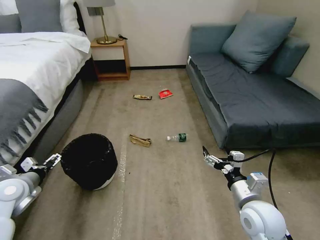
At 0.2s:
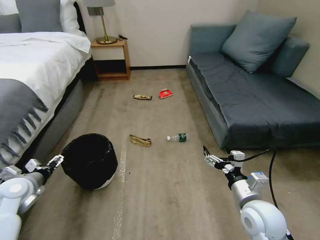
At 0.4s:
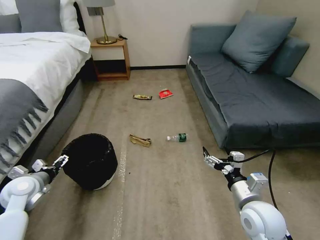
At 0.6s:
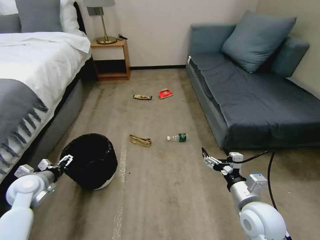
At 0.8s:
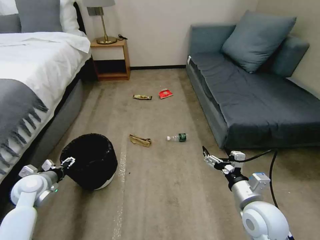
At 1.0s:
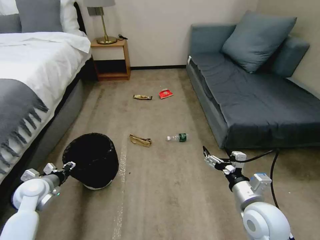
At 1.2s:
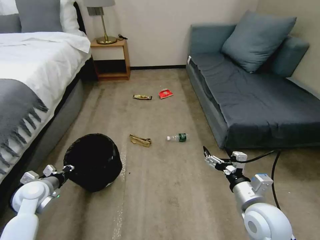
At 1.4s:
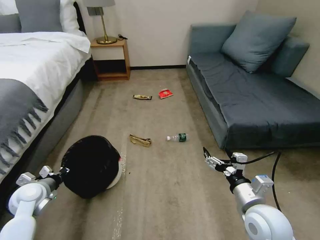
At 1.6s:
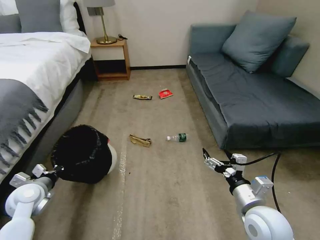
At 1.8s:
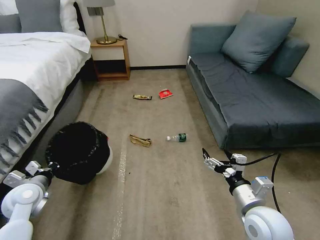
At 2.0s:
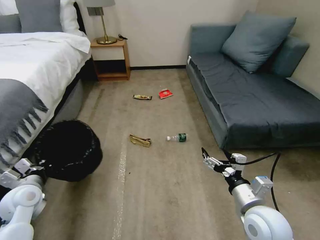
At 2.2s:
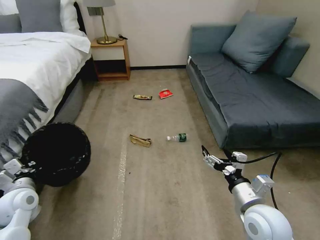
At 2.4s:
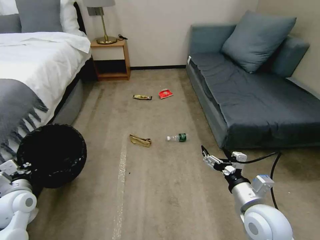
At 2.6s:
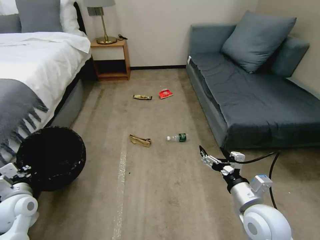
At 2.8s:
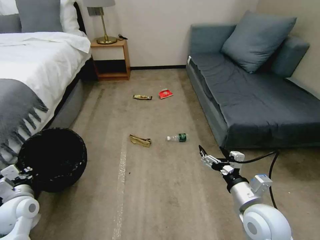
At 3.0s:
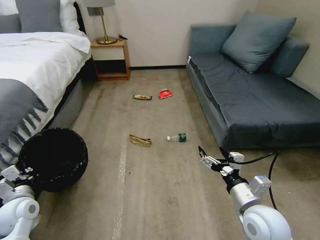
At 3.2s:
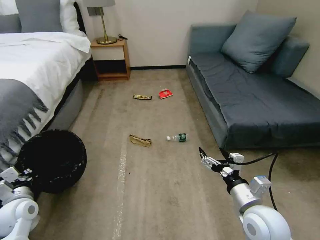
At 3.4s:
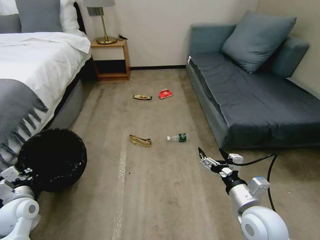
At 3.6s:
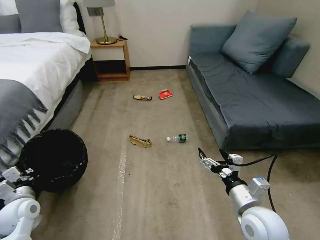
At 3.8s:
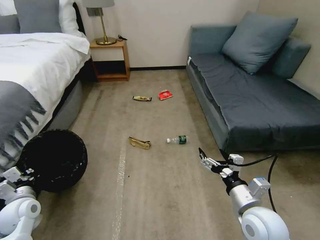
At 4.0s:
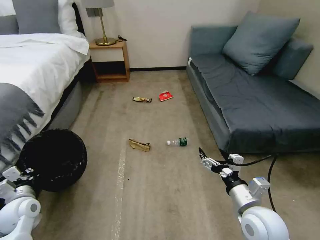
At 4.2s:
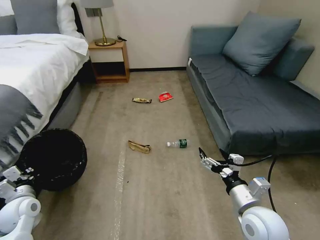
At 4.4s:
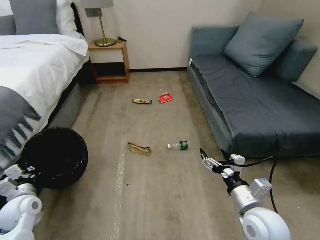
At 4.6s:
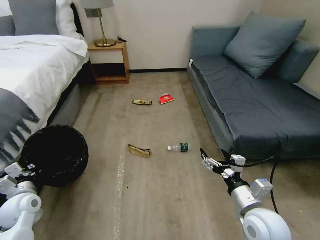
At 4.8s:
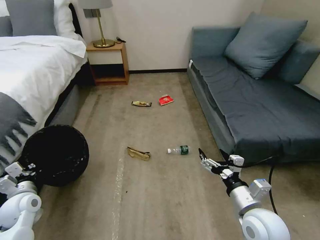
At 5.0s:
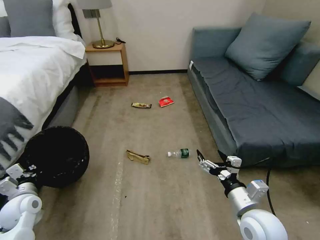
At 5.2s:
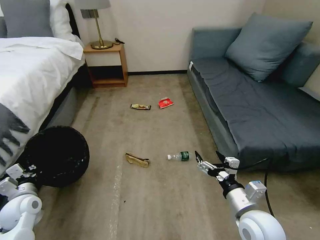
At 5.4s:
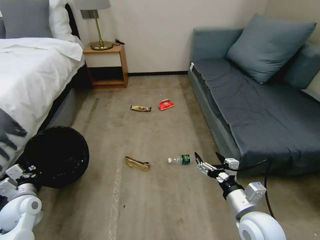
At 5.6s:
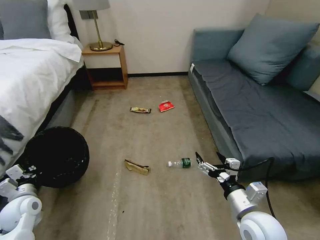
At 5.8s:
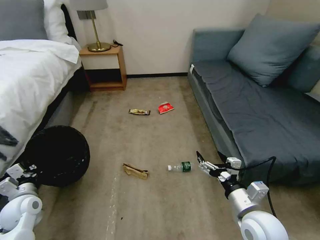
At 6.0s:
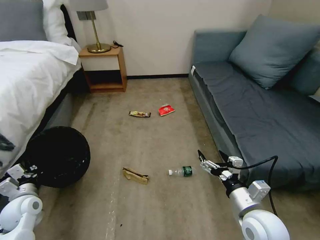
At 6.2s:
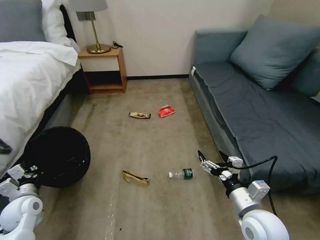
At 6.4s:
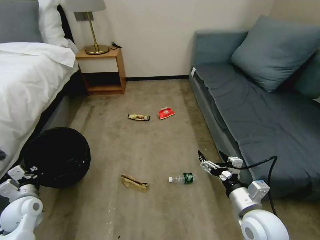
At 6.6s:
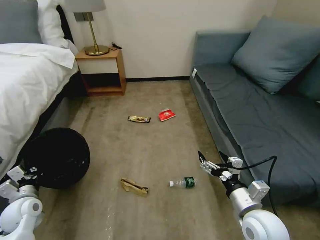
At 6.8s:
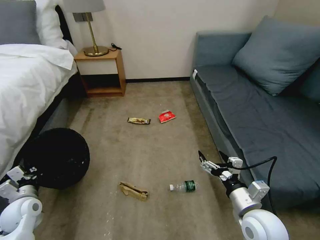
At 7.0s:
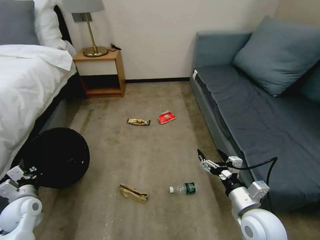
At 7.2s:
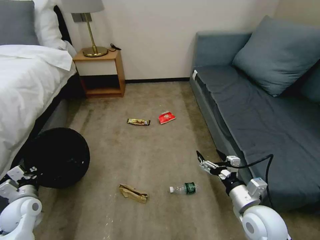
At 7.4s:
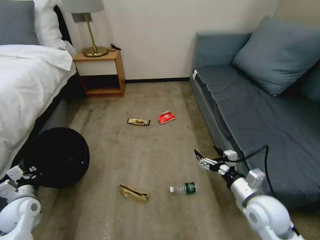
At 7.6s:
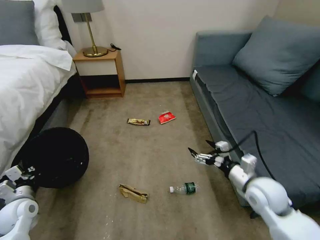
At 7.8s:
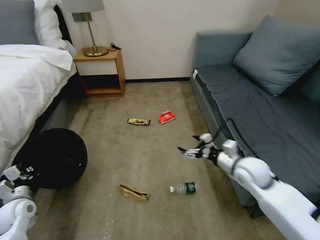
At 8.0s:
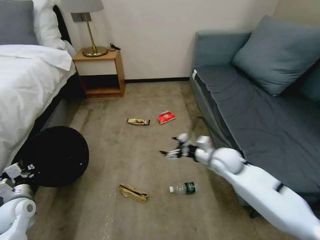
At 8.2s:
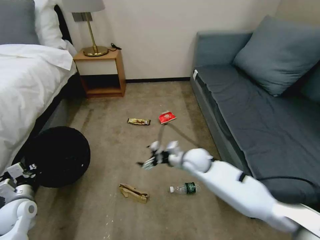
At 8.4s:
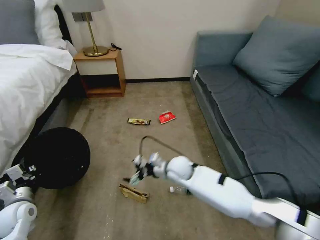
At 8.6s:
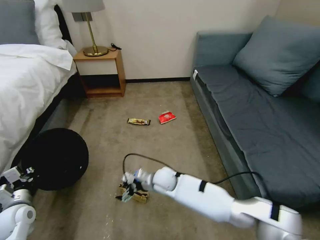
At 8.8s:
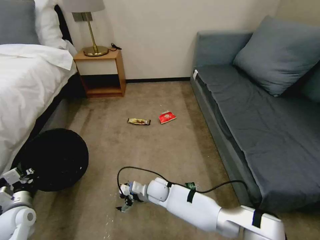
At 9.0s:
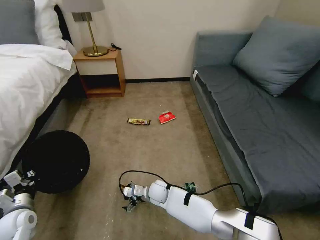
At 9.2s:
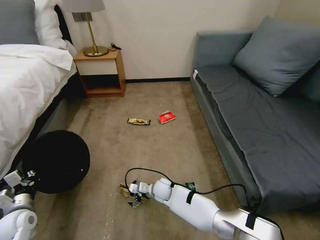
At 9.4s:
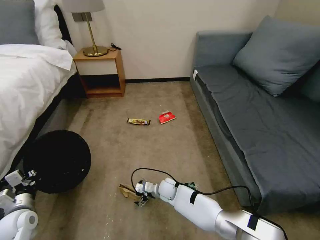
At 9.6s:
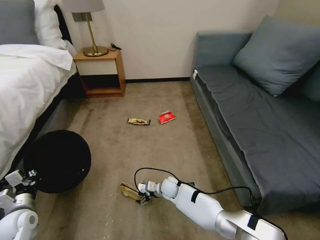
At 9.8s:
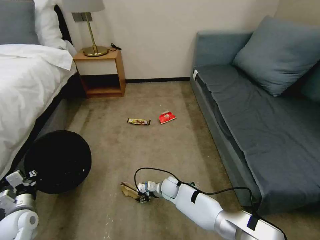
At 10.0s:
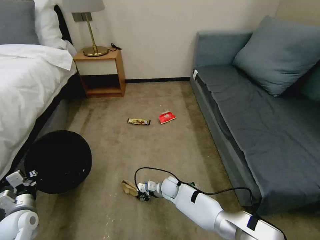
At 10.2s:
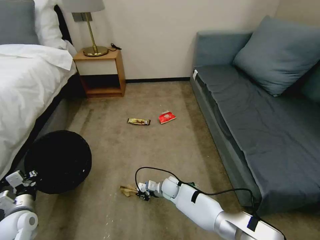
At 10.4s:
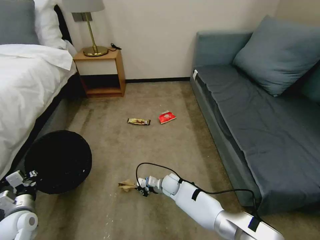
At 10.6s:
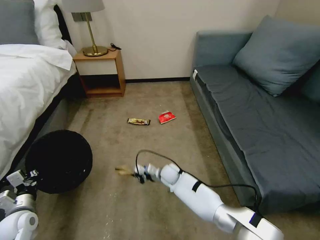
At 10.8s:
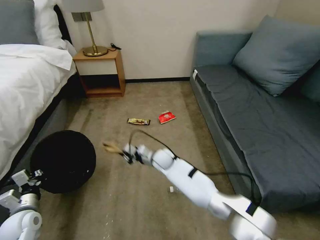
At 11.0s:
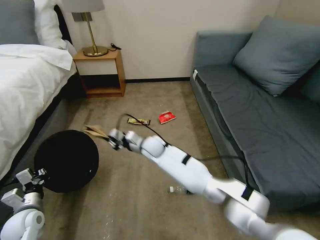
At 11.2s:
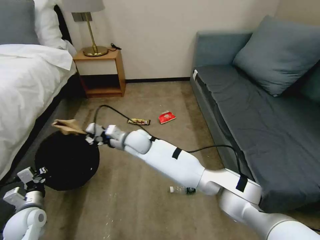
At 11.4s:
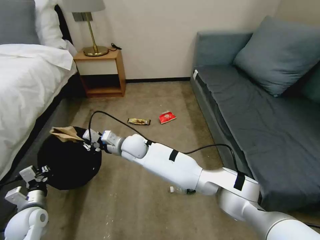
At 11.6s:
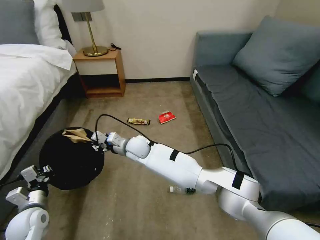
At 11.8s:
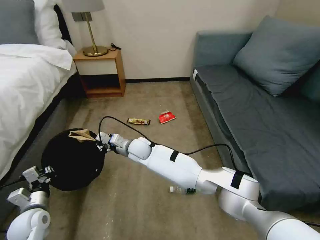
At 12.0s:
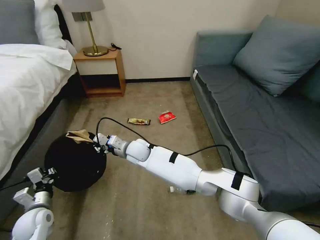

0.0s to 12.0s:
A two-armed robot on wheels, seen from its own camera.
Task of the whole recording: Pick up the trash bin, then pick up the garbage on the floor and place it into the trash bin.
0.0s to 1.6s: The left gripper moves downward, roughly 5 cm, and closes up.
3.0s to 4.4s: There are only small adjustments of the grippers.
6.0s to 7.6s: The right gripper shifts approximately 10 cm forward.
7.6s to 9.0s: The right gripper moves to the left and downward, about 40 cm.
9.0s to 10.4s: The right gripper is displaced to the right by approximately 5 cm, and closes its fingers.
10.4s to 12.0s: The right gripper goes roughly 25 cm upward and to the left.

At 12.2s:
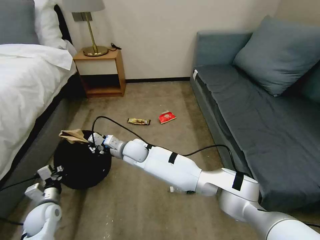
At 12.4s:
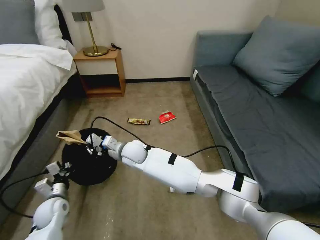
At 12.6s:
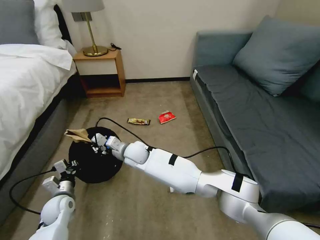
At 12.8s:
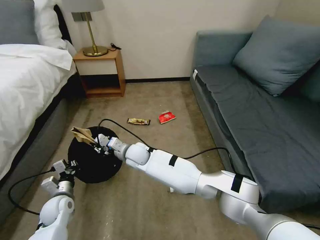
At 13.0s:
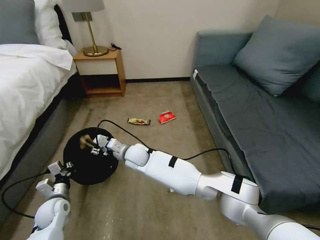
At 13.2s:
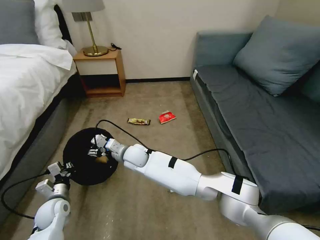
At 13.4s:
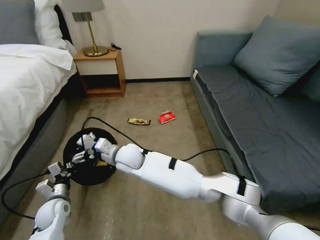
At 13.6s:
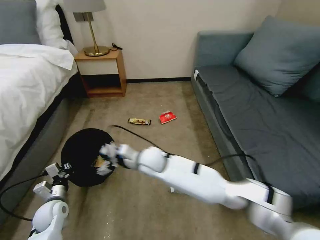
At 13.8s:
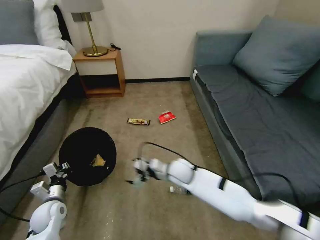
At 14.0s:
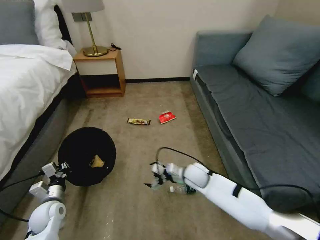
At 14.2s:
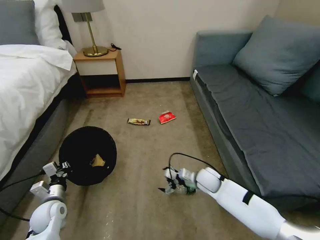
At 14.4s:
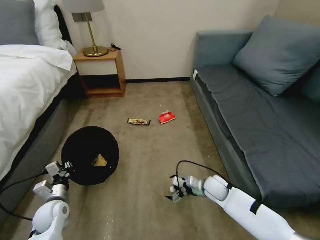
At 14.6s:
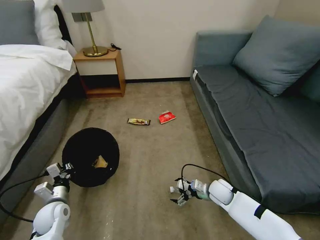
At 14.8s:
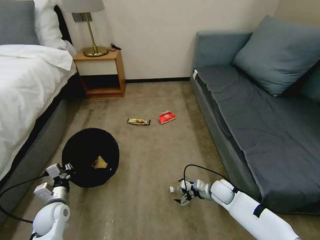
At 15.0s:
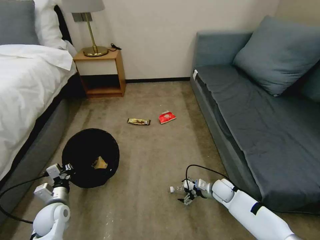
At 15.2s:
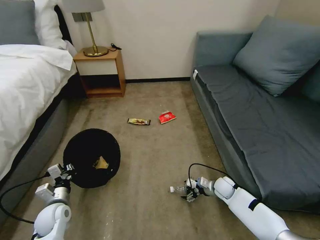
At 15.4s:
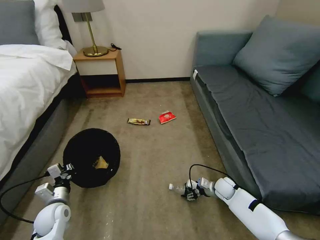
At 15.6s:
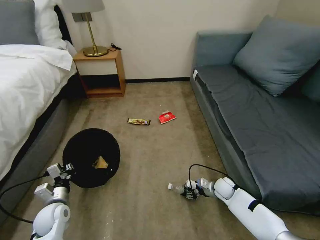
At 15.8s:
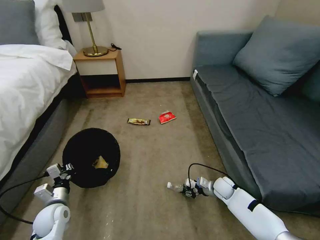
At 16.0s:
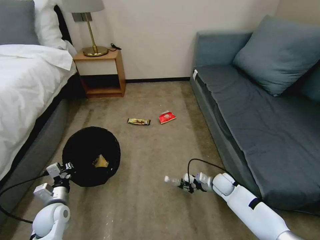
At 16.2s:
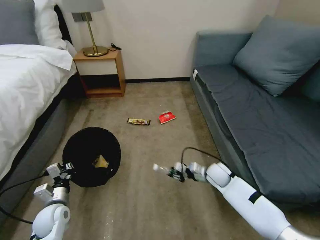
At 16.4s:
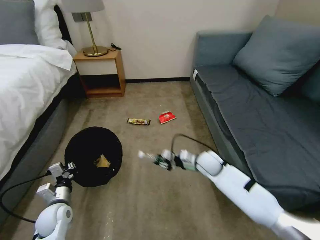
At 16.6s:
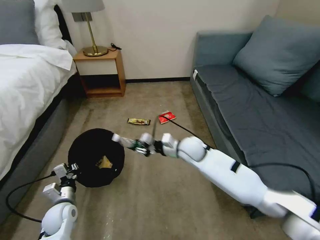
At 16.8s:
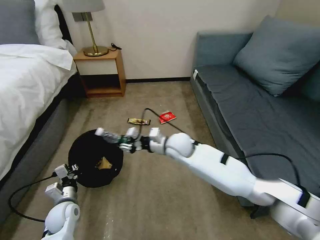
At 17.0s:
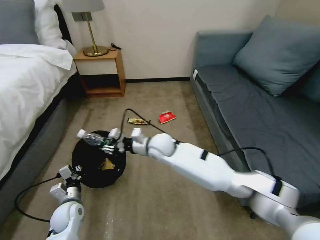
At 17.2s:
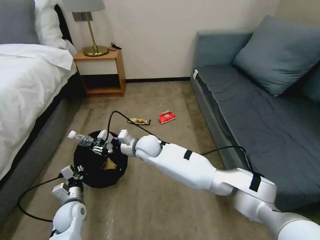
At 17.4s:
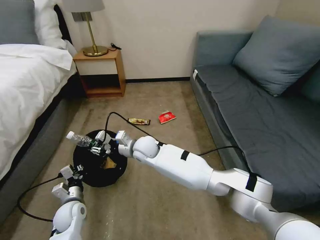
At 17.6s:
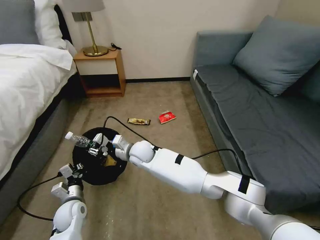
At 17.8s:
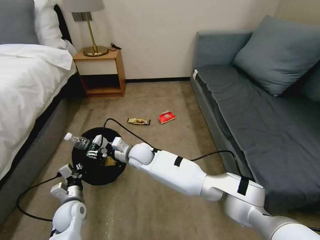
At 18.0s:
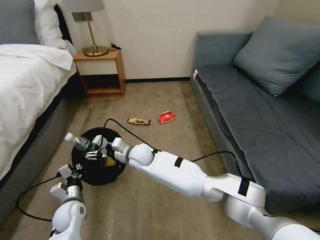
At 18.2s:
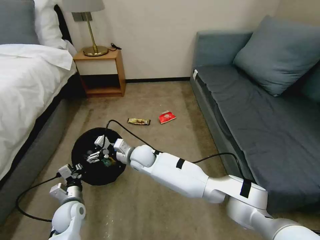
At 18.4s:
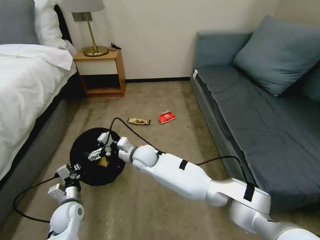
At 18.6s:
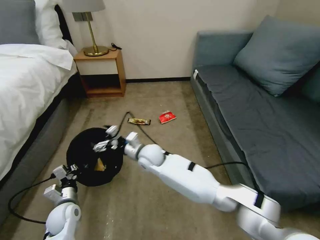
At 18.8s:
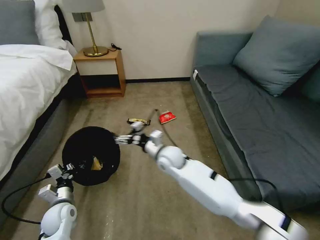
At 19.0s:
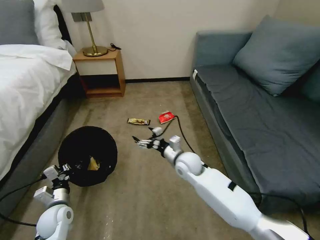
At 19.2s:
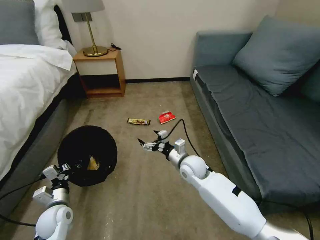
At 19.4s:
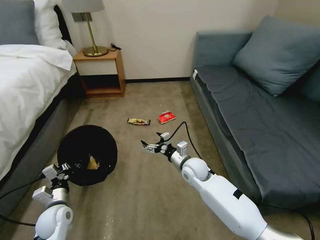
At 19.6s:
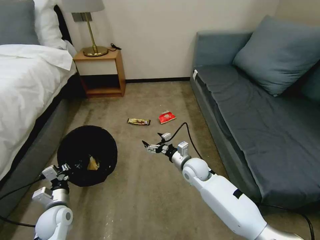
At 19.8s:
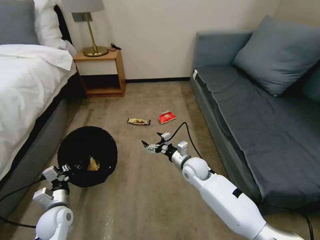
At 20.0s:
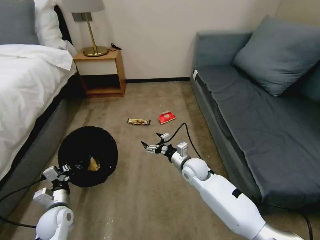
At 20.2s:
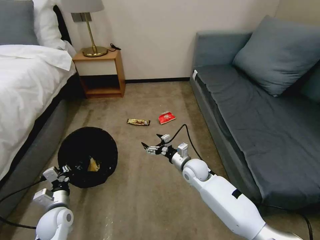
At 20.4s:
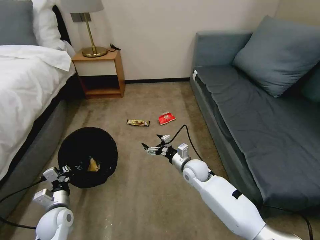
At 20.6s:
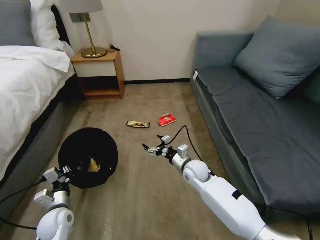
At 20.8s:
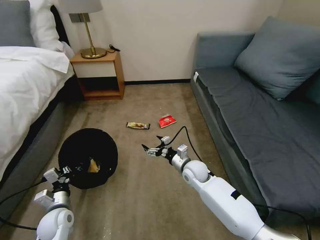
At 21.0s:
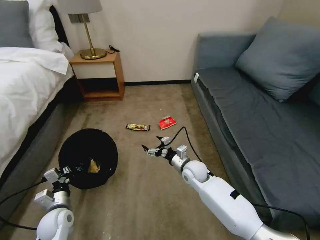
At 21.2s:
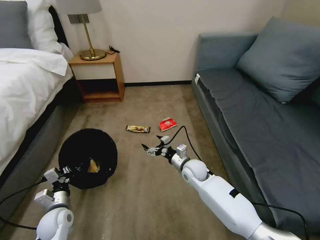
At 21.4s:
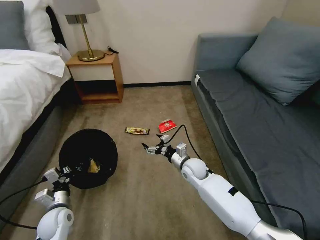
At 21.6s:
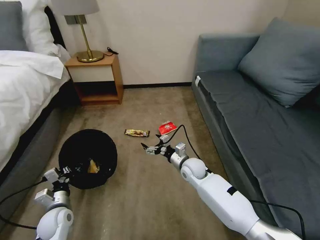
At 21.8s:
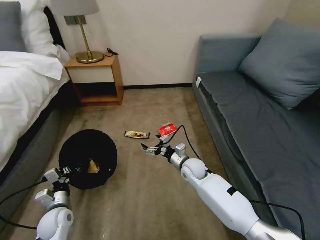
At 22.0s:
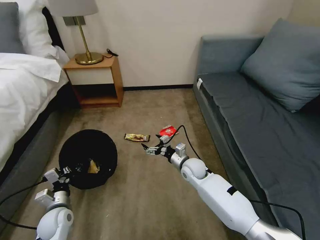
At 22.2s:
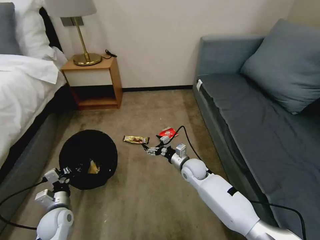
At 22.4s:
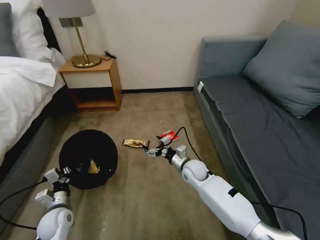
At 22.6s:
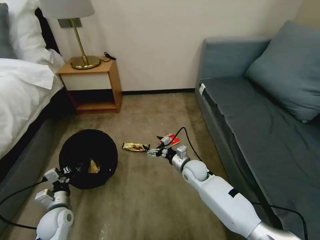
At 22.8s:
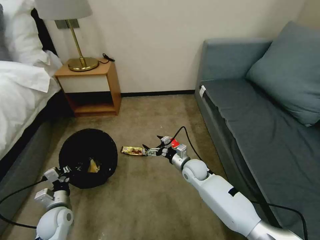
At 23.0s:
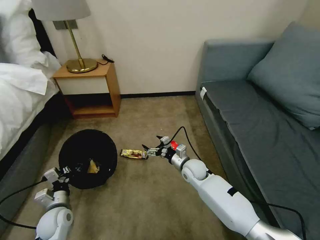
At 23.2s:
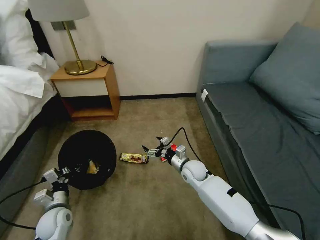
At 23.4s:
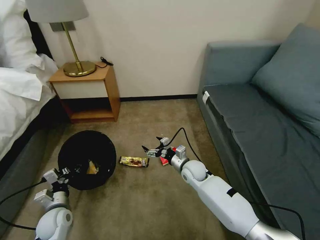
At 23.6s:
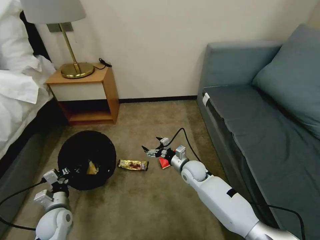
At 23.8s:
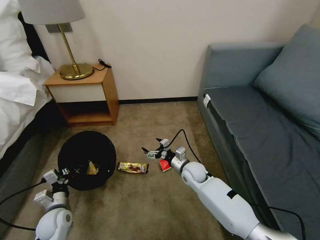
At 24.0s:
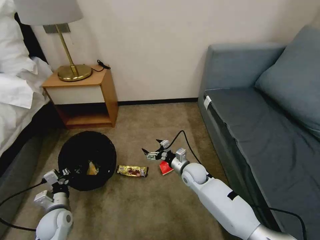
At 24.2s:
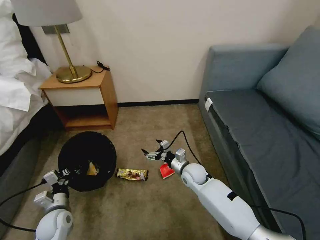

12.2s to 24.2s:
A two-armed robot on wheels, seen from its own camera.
Task of the whole recording: Pick up the trash bin, then pick up the garbage on the floor and place it into the trash bin.
12.2s to 13.8s: The right gripper is displaced to the right by about 15 cm, and opens its fingers.
13.8s to 15.2s: The right gripper travels to the right and downward by roughly 30 cm.
15.2s to 16.6s: The right gripper heads upward and to the left, covering approximately 30 cm, and closes its fingers.
16.6s to 18.2s: The right gripper heads to the left, covering some 20 cm, and opens.
18.2s to 19.8s: The right gripper heads to the right, covering approximately 20 cm.
19.8s to 21.2s: The grippers make only small movements.
